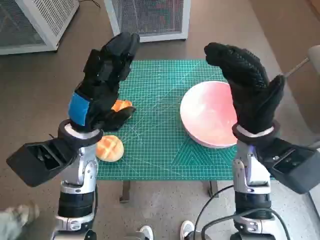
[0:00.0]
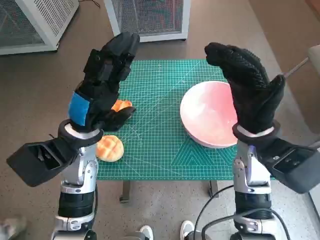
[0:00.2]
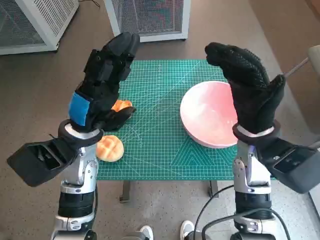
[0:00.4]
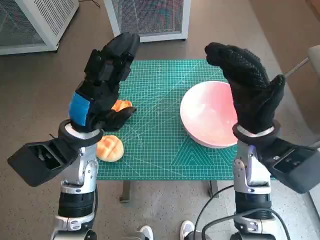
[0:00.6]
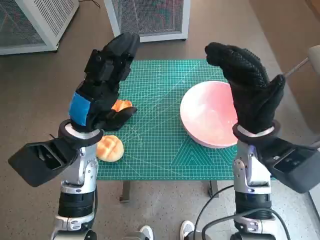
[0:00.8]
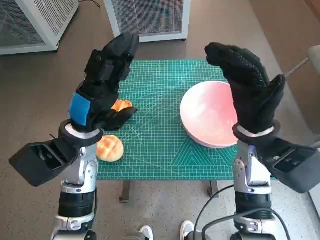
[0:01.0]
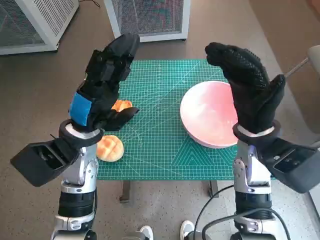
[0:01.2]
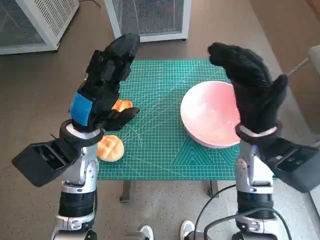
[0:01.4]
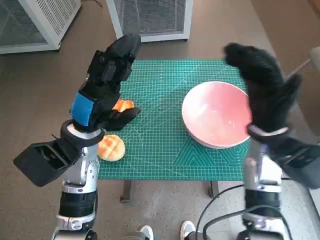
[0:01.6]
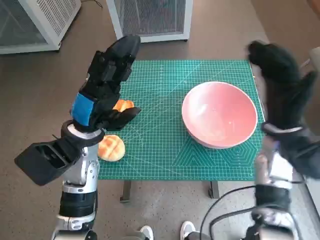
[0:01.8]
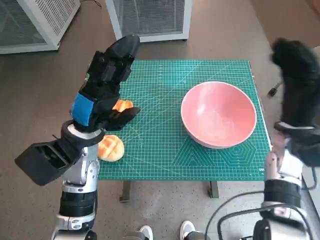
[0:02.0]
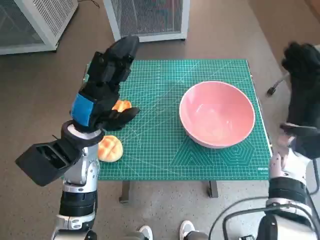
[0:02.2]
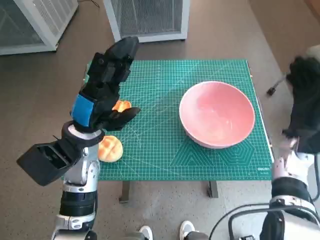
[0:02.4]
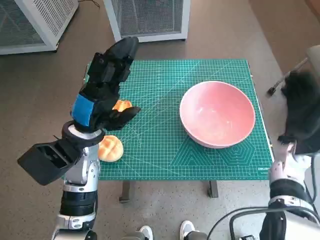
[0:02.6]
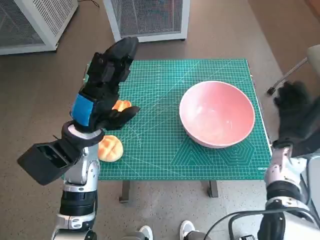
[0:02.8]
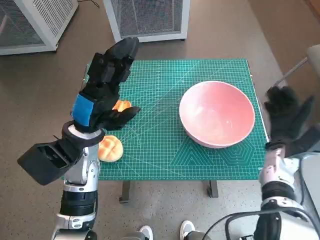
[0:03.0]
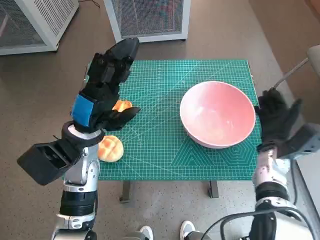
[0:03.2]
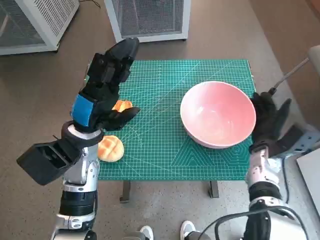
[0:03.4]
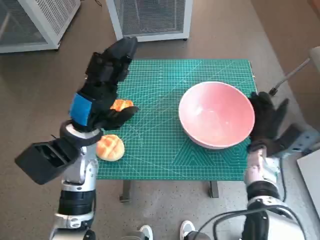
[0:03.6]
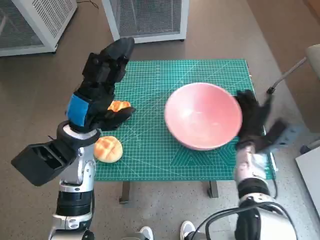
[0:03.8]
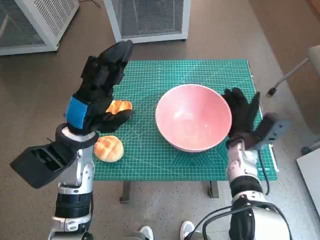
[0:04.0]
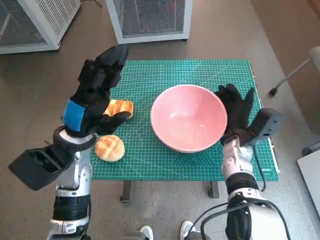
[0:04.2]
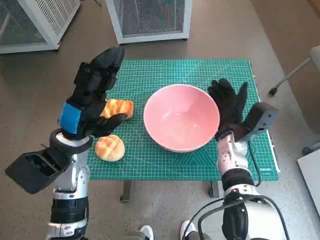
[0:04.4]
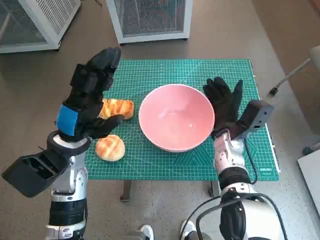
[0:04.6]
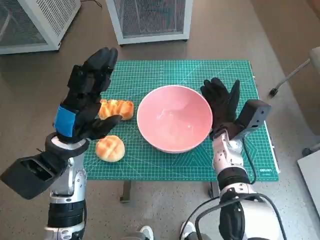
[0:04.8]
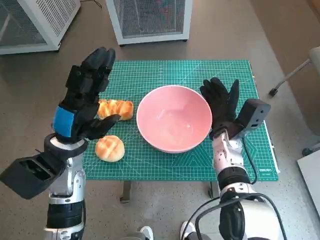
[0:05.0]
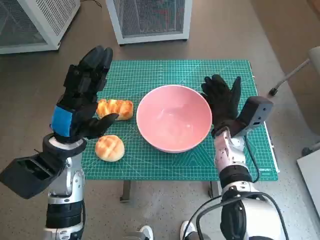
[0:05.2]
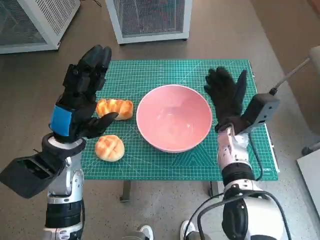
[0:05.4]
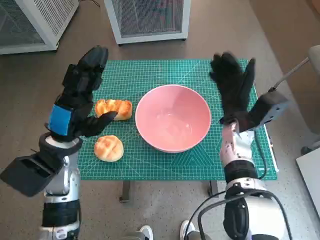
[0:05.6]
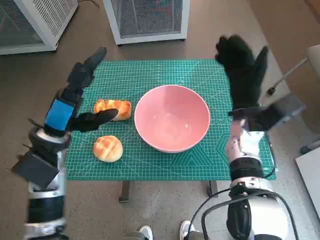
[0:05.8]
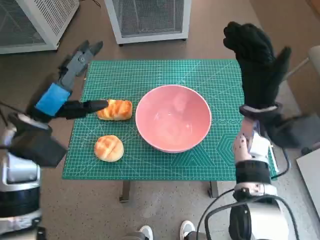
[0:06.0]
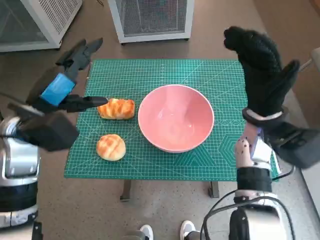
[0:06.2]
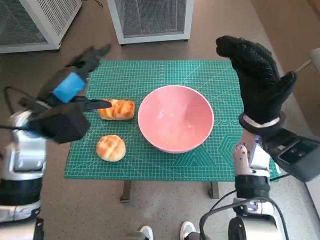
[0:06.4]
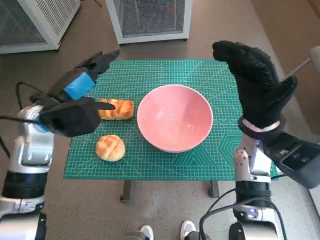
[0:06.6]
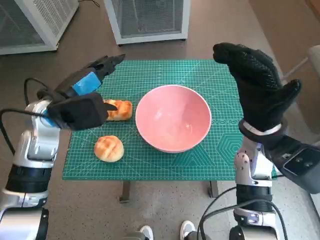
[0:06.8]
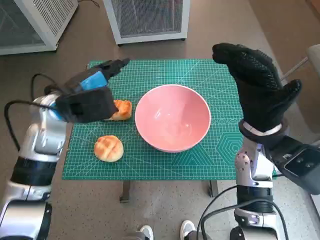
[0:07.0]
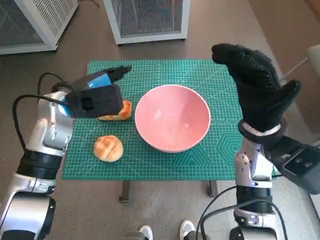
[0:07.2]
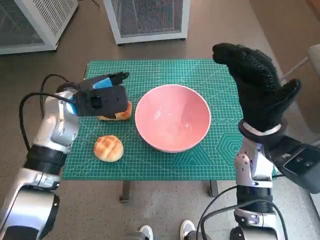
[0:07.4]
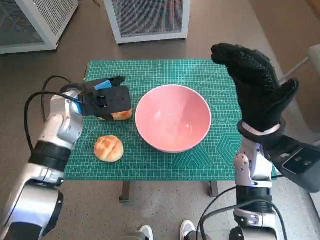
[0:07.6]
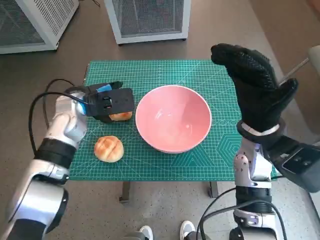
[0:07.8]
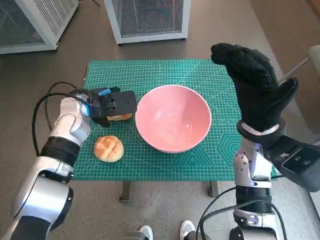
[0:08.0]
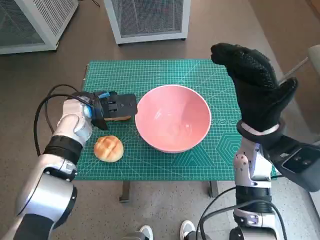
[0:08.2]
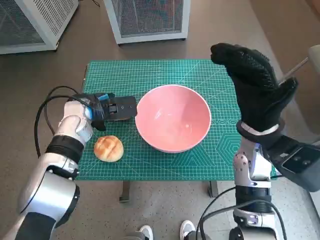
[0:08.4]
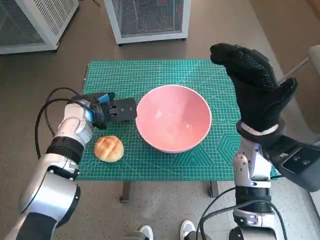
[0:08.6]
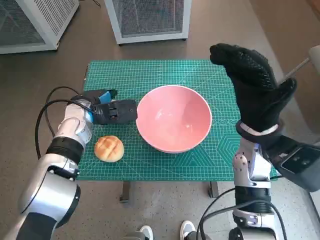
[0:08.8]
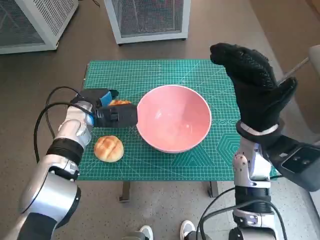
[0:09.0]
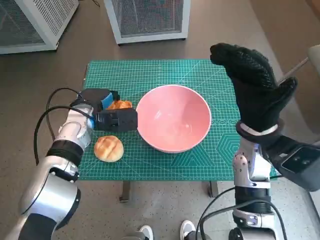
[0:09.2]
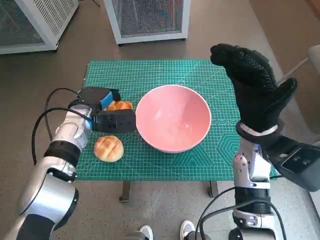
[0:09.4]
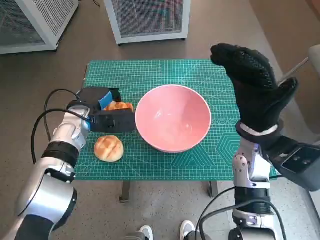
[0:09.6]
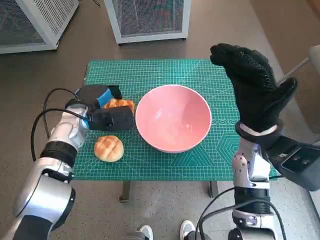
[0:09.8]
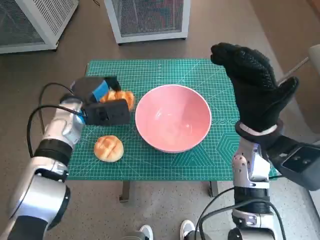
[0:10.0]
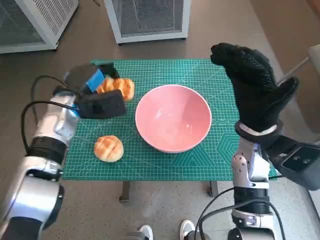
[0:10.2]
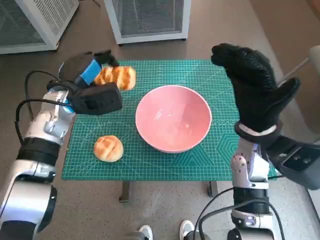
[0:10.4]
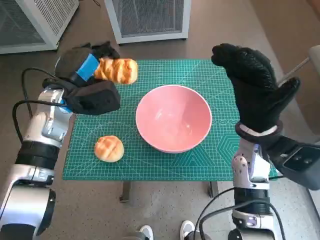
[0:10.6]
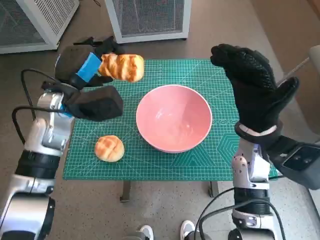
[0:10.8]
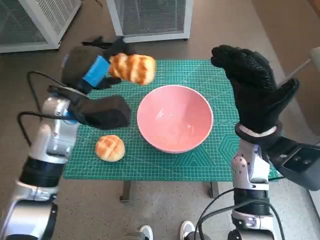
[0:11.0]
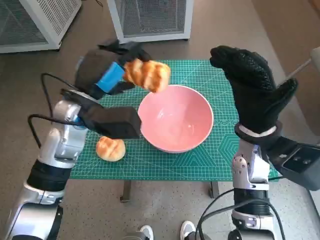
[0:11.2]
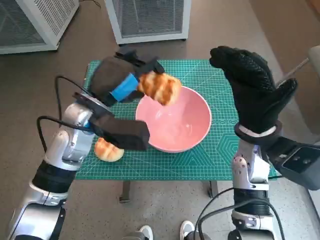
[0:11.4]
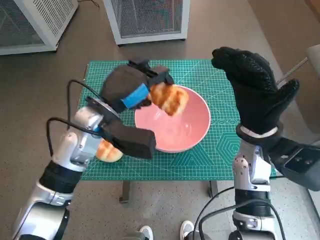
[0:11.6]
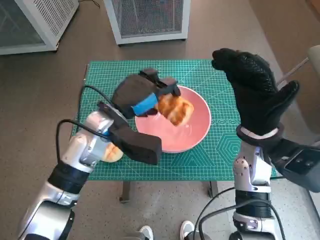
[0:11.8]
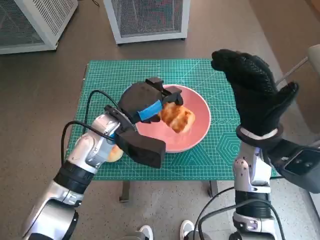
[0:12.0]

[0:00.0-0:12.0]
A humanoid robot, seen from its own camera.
Task of the whole recording: Push the bowl into the center of the table and put the bread into the bowl.
Step, 0:00.0 to 0:05.4: Move the pink bowl to the center of table with right hand.
Step, 0:05.6 to 0:09.2: Grasp the long bread with left hand.
0:01.6 to 0:03.0: The right hand heads downward and to the right, covering about 15 cm.
0:03.0 to 0:04.4: The right hand moves to the left, approximately 10 cm.
0:04.4 to 0:06.0: The left hand goes some 5 cm to the left, while the right hand is displaced upward by about 10 cm.
0:06.0 to 0:07.6: The left hand is displaced forward by some 10 cm. Meanwhile the right hand changes place by about 5 cm.
0:07.6 to 0:09.0: The left hand goes about 5 cm downward.
0:09.0 to 0:10.4: The left hand is displaced upward by roughly 5 cm.
0:10.4 to 0:12.0: The left hand shifts roughly 10 cm to the right.

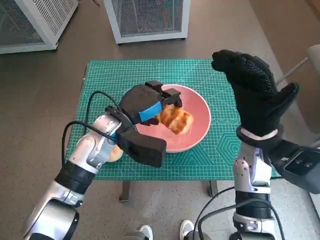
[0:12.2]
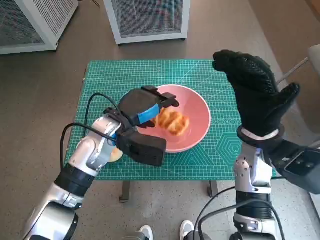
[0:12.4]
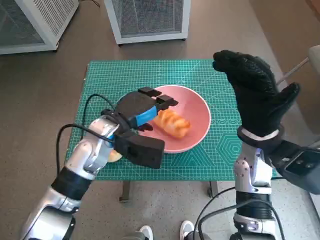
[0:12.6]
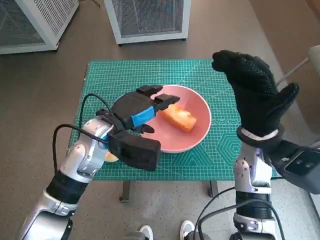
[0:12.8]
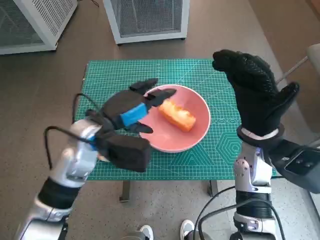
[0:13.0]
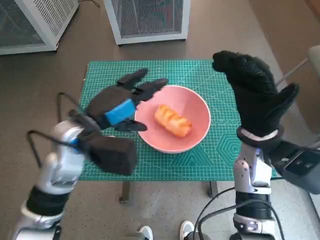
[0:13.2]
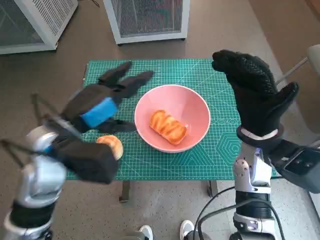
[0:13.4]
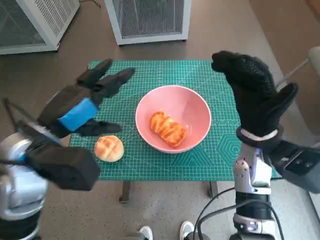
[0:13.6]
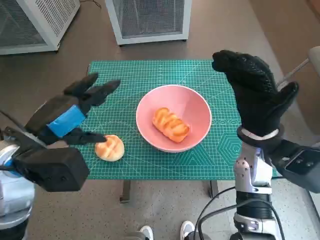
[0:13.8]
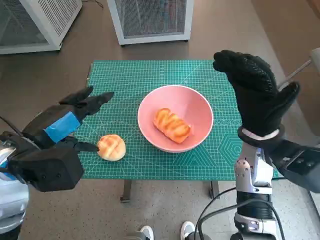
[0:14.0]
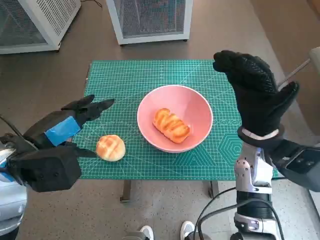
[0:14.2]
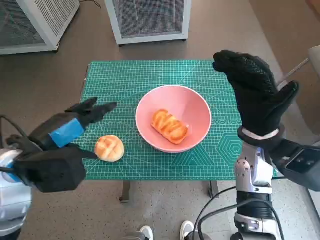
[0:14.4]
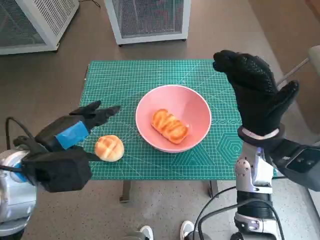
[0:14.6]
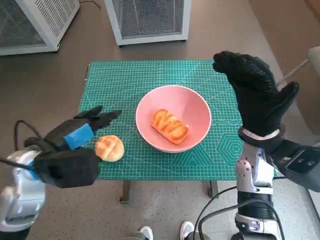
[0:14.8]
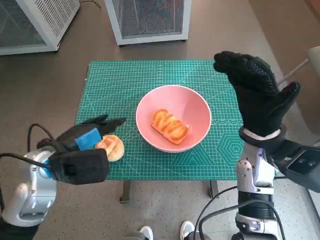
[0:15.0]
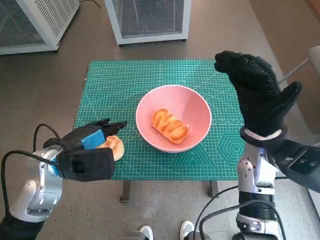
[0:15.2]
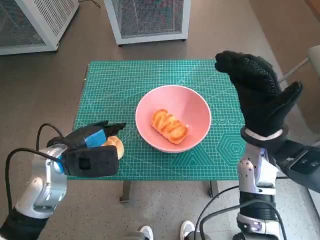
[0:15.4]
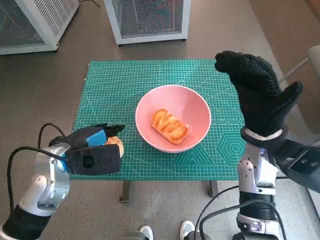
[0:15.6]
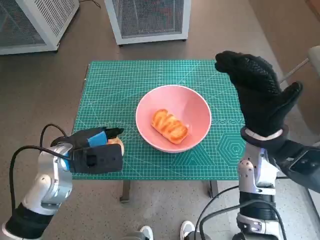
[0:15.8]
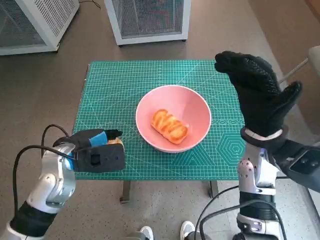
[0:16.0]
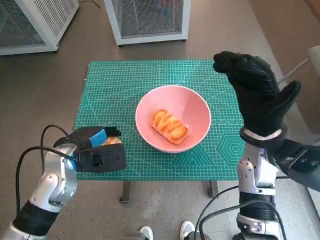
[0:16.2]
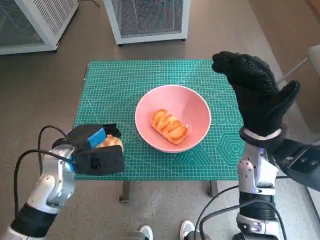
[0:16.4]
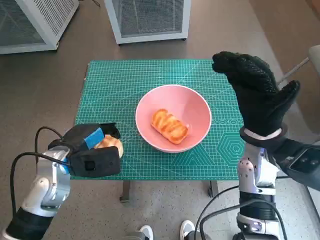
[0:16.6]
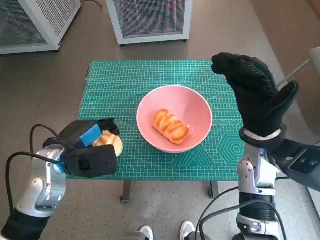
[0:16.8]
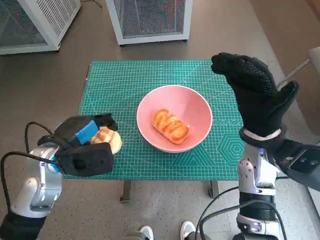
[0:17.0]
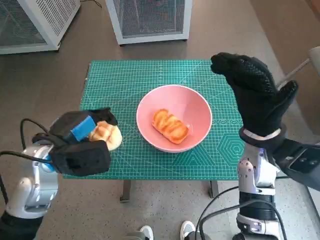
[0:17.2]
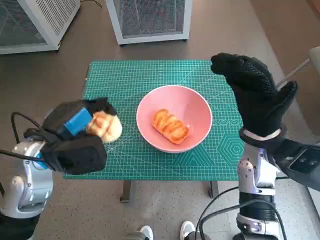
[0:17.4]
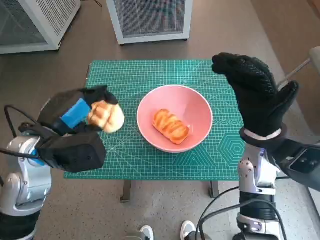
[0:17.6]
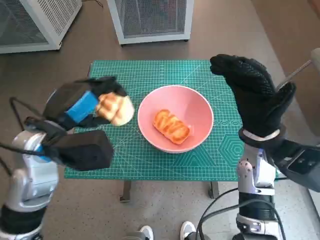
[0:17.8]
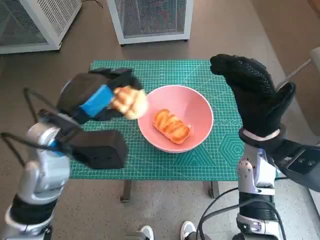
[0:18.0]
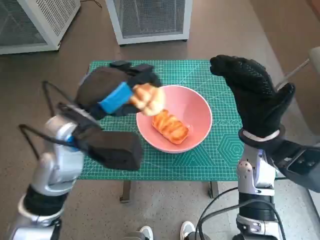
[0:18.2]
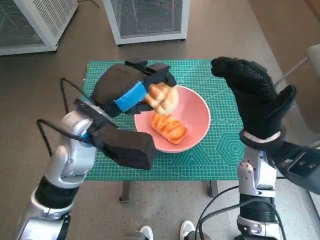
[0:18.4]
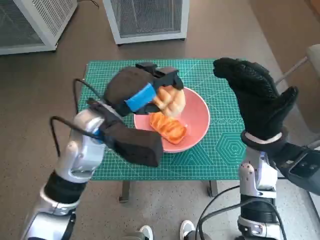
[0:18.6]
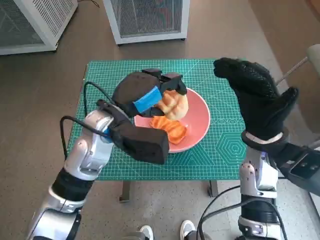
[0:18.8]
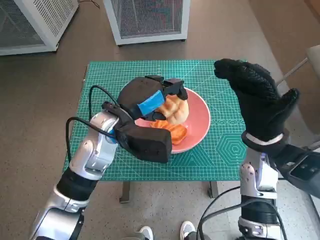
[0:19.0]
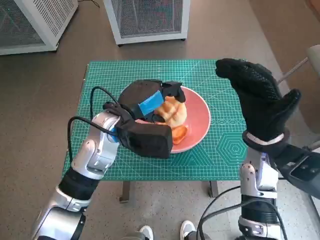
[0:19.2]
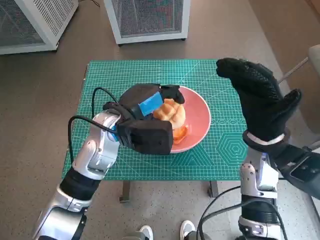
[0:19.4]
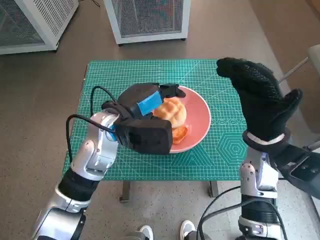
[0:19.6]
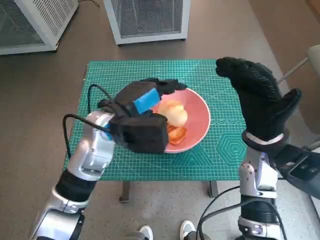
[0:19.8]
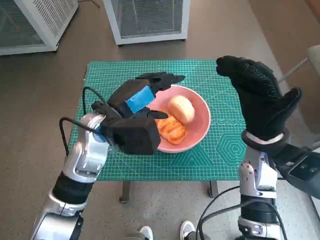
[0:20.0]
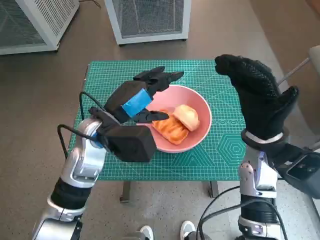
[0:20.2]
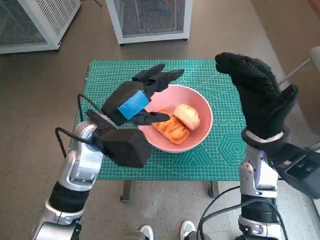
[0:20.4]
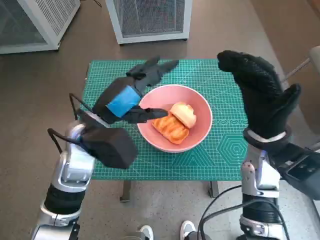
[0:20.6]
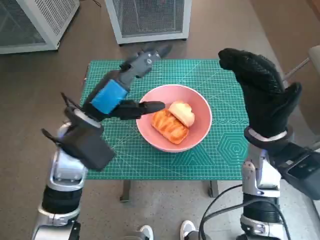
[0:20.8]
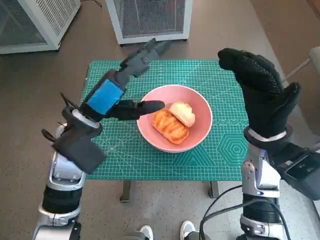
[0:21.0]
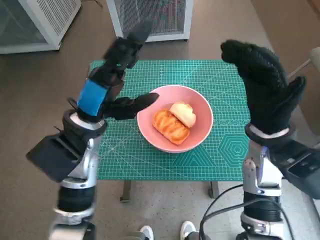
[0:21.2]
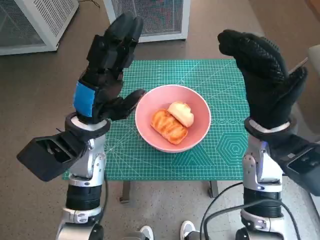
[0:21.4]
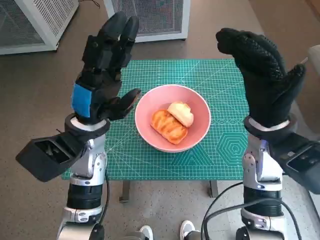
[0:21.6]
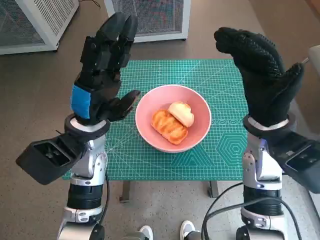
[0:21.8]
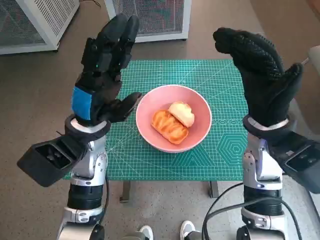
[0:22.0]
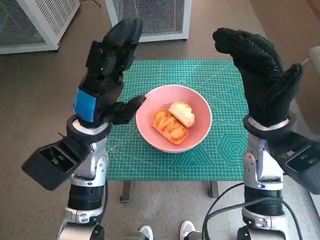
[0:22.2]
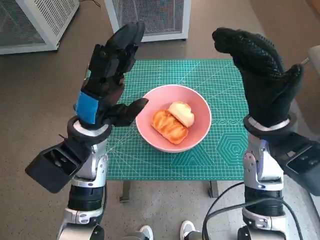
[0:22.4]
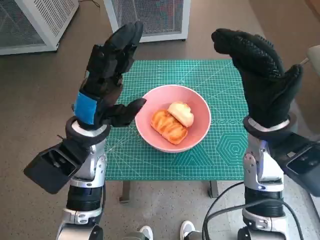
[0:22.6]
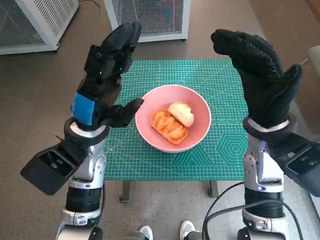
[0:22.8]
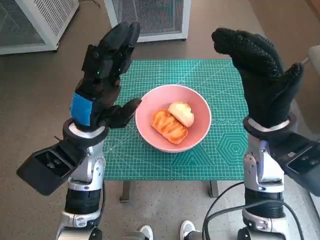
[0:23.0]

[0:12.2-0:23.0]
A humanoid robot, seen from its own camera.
Task of the whole recording: Push the bowl into the center of the table and put the bread into the bowl.
Step, 0:12.6 to 0:16.4: Grasp the round bread with left hand.
Step, 0:16.6 to 0:19.8: Place the round bread in pink bowl with left hand.
0:12.2 to 0:13.8: The left hand heads to the left, backward and upward, covering roughly 15 cm.
0:13.8 to 0:15.2: The left hand heads downward, covering approximately 5 cm.
0:15.2 to 0:16.8: The hands stay close to where they were, moving slightly.
0:16.8 to 0:18.4: The left hand heads upward and to the right, covering approximately 10 cm.
0:21.4 to 0:23.0: There are only small adjustments of the hands.
